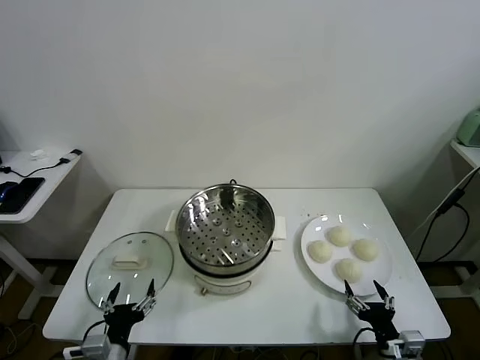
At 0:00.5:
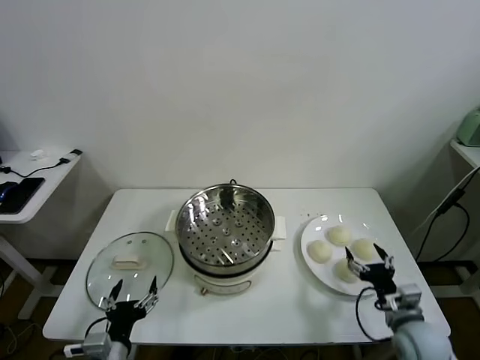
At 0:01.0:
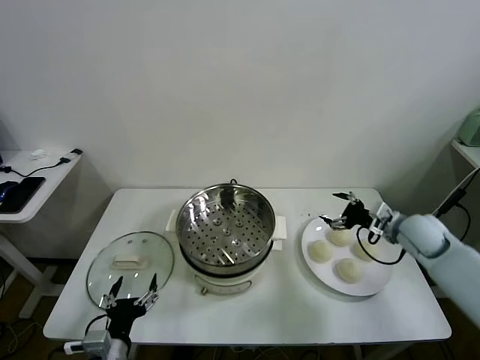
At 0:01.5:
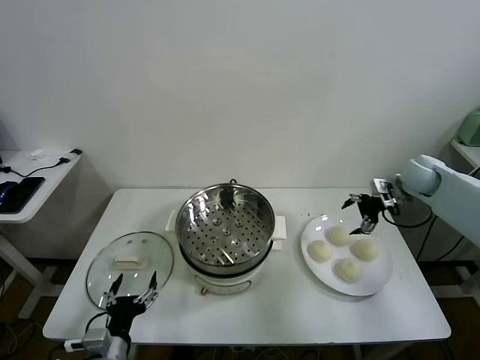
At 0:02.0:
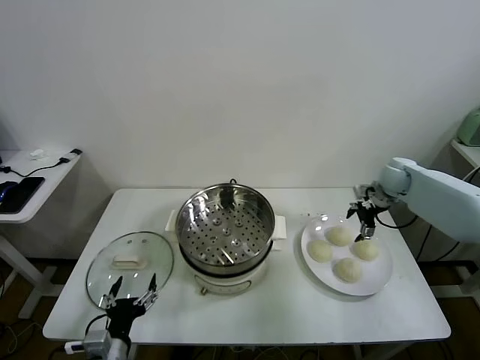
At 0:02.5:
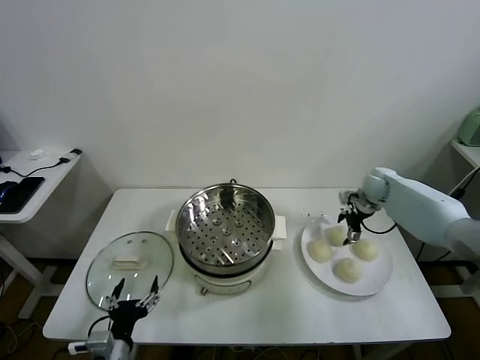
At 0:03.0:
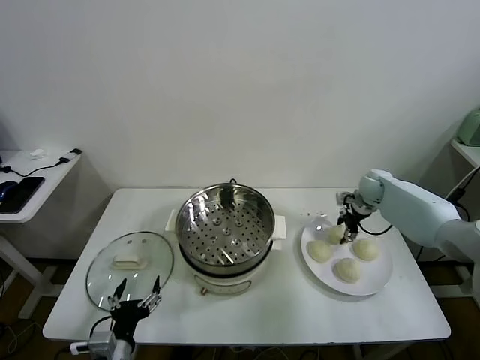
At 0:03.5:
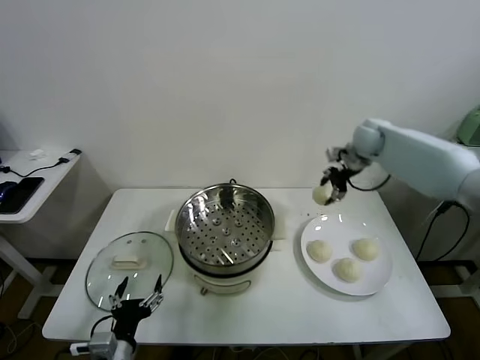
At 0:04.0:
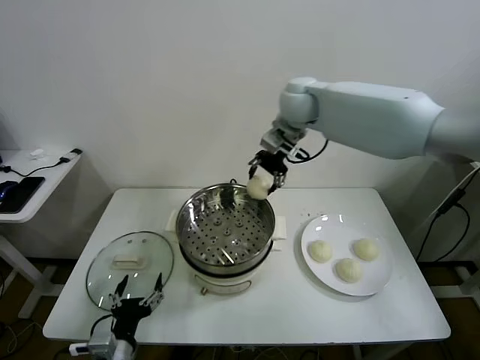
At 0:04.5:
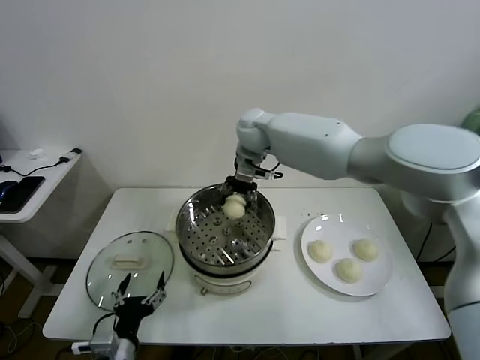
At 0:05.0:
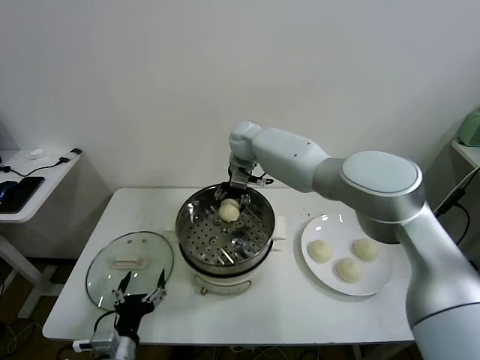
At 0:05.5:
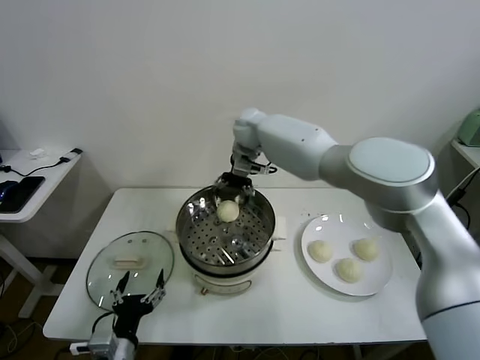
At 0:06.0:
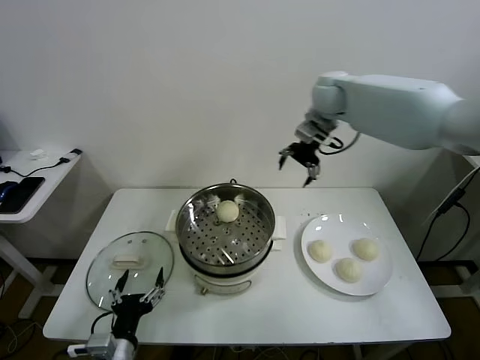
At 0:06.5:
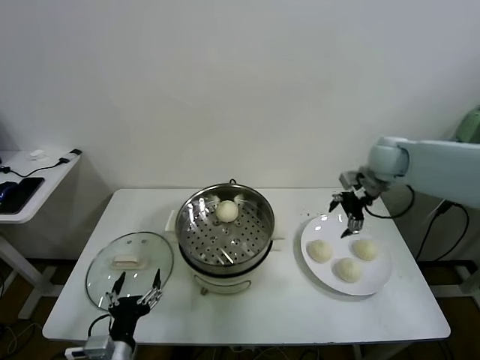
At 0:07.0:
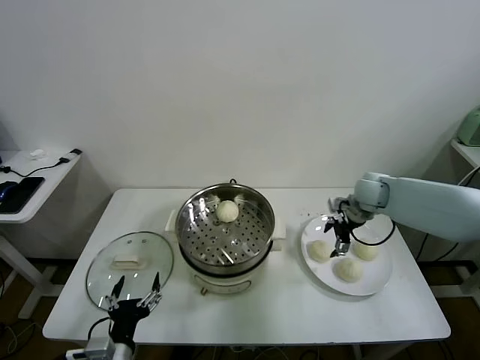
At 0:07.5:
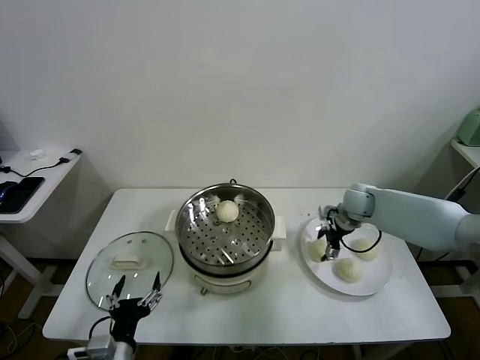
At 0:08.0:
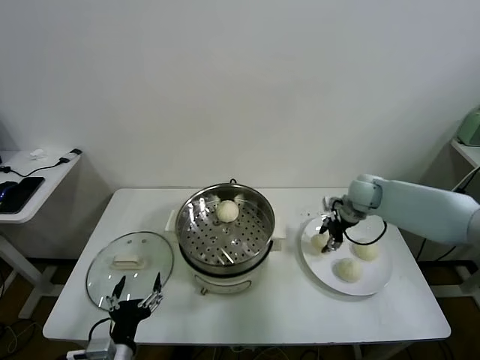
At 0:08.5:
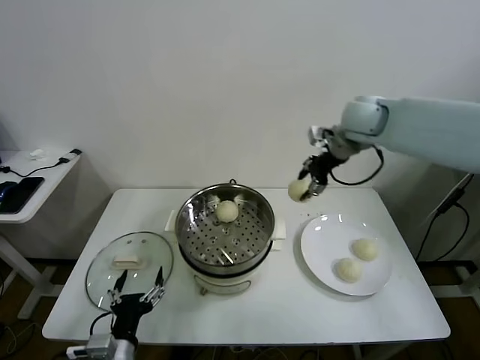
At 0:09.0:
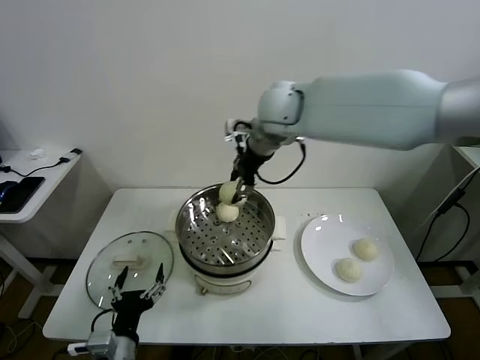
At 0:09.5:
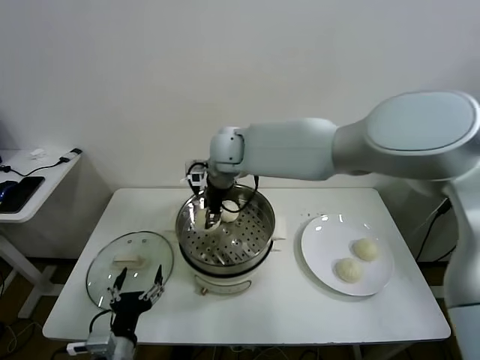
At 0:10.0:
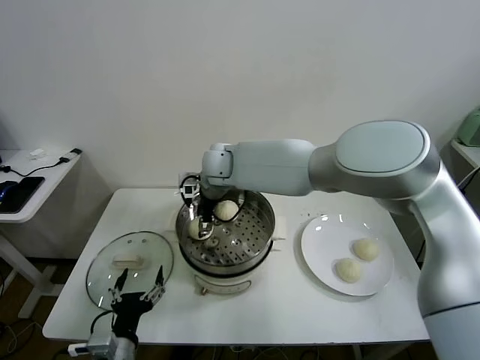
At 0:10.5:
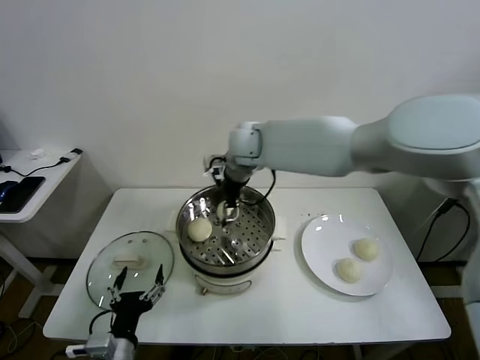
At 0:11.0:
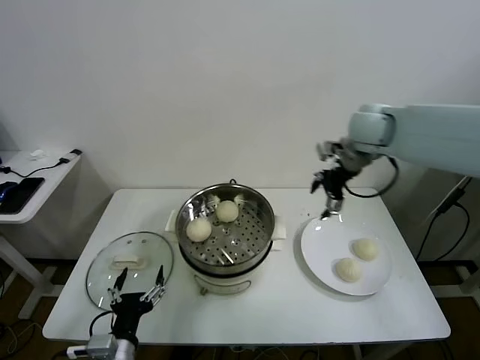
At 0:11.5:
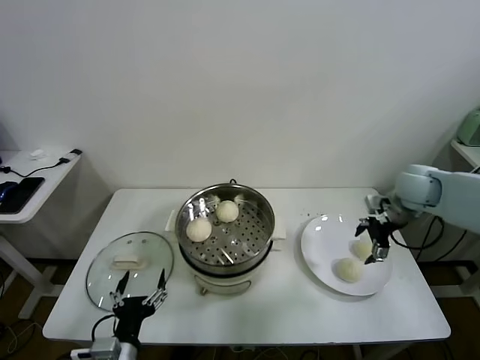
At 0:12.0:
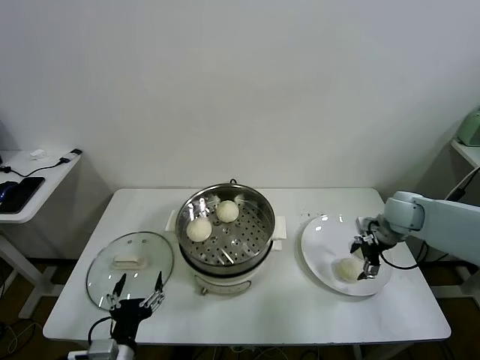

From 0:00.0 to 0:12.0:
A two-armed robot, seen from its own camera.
Task of the whole recording: take steamed baozi put them in steamer.
Step, from 0:00.0 to 0:02.5: Grasp the baozi in the plate with right gripper.
Step, from 0:03.0 to 0:05.0: Place the baozi on the steamer with right gripper.
Step, from 0:05.5 to 0:07.5: Grasp the baozi in the plate with right gripper.
Step, from 0:08.0 to 0:10.0: Place the baozi on the steamer with right gripper.
From 0:02.0 to 0:04.0: The right gripper is displaced to the left and upward by roughly 35 cm, and closes its fingers.
From 0:04.0 to 0:06.0: The right gripper heads to the right, covering about 15 cm, and opens.
From 0:06.0 to 0:08.0: The right gripper goes roughly 20 cm downward, and closes its fingers.
From 0:08.0 to 0:10.0: The right gripper shifts approximately 35 cm to the left, and opens up.
From 0:10.0 to 0:12.0: The right gripper moves to the right, about 40 cm.

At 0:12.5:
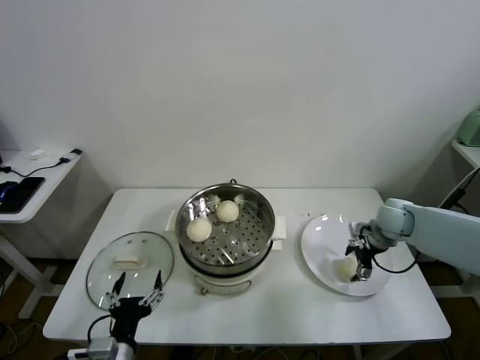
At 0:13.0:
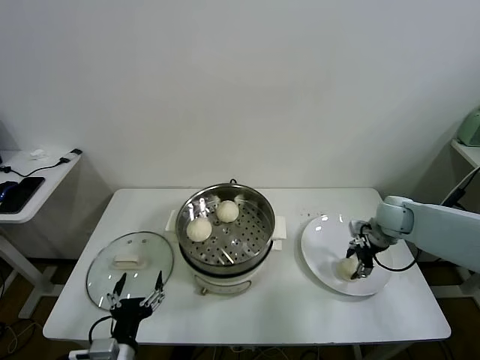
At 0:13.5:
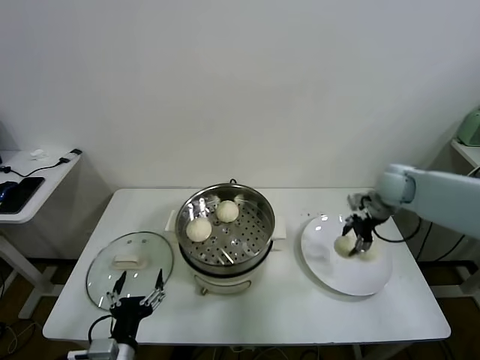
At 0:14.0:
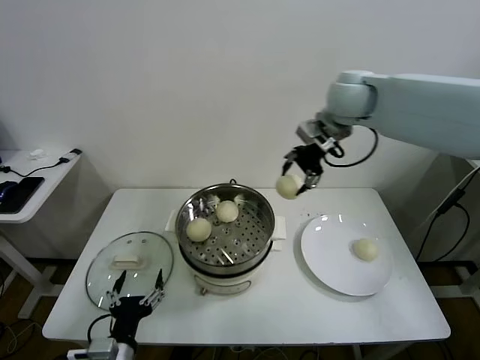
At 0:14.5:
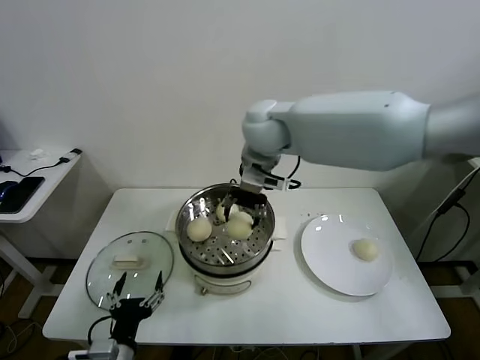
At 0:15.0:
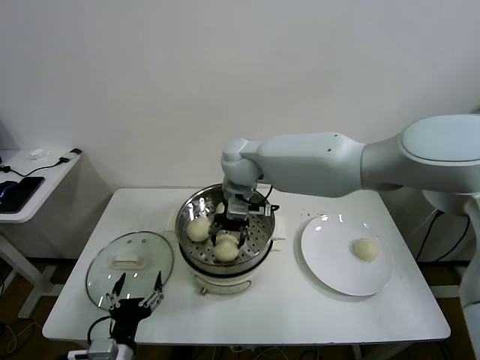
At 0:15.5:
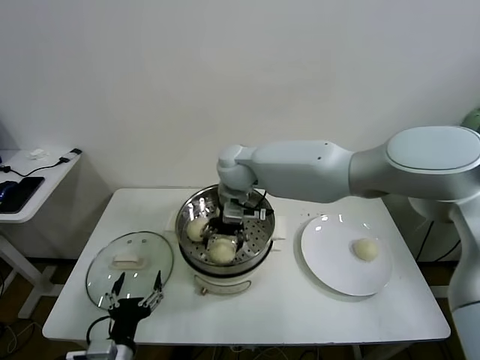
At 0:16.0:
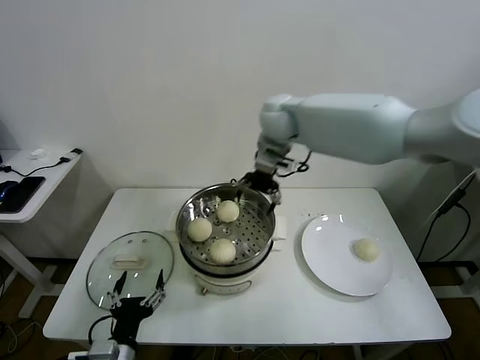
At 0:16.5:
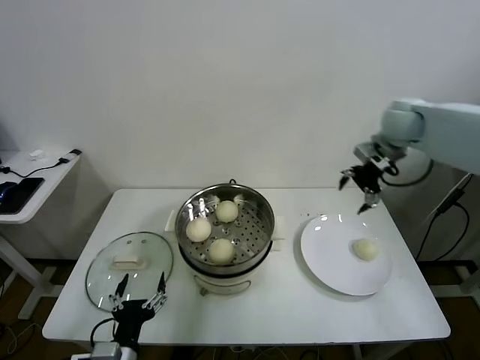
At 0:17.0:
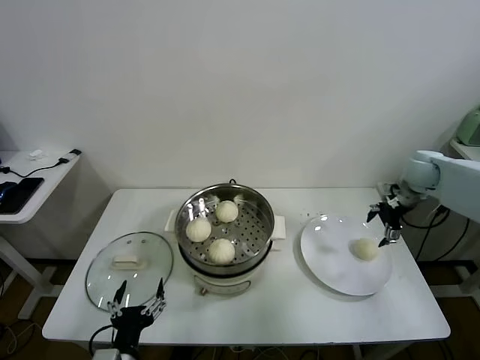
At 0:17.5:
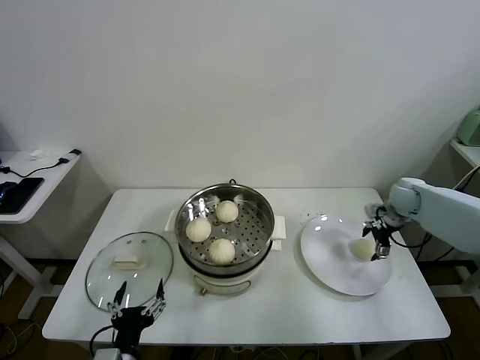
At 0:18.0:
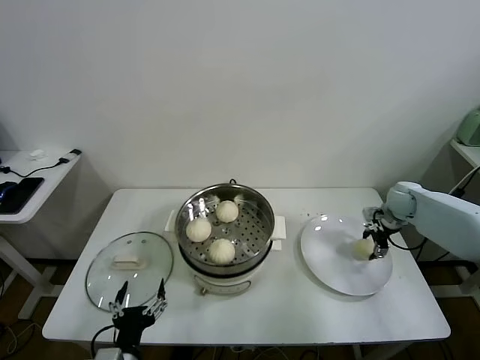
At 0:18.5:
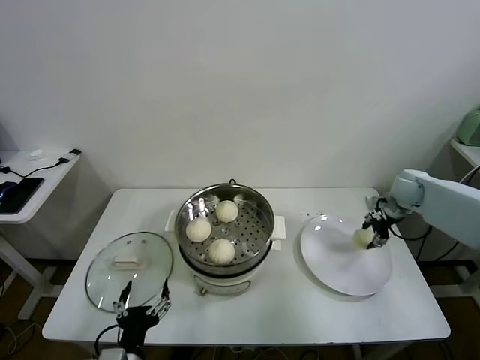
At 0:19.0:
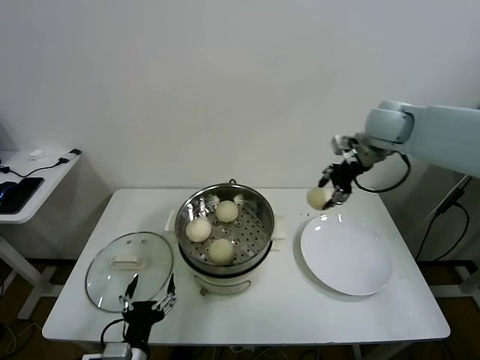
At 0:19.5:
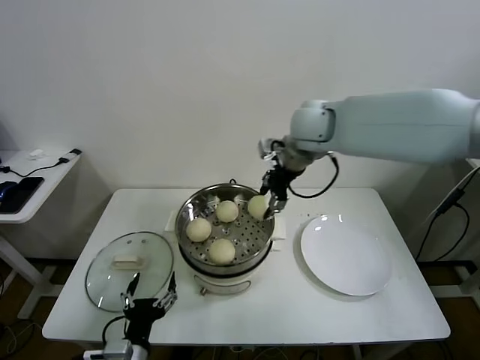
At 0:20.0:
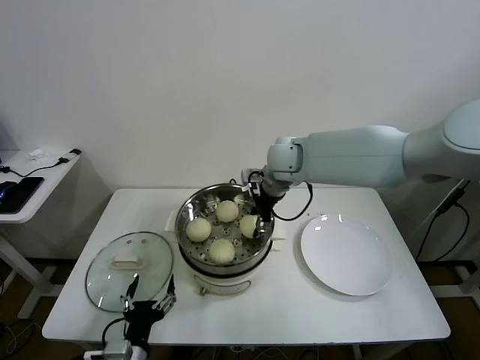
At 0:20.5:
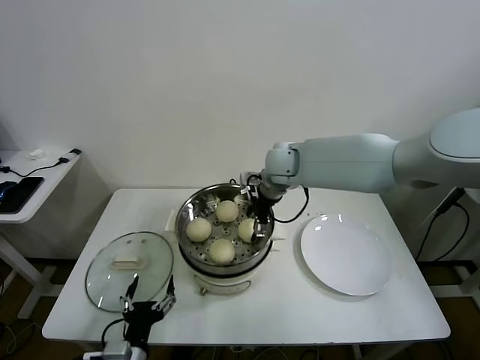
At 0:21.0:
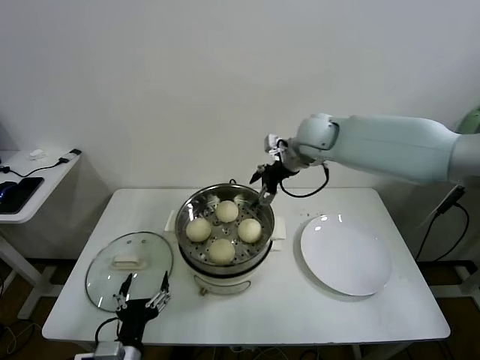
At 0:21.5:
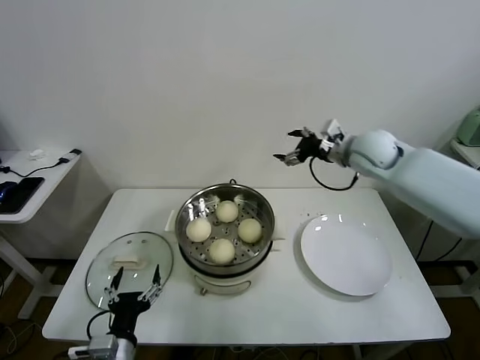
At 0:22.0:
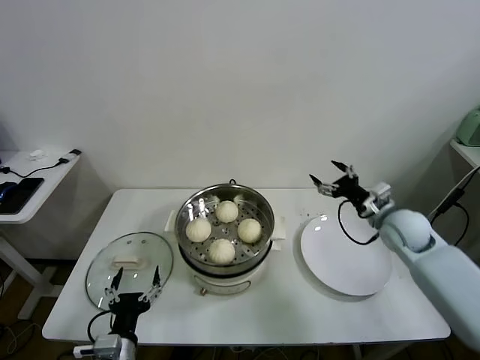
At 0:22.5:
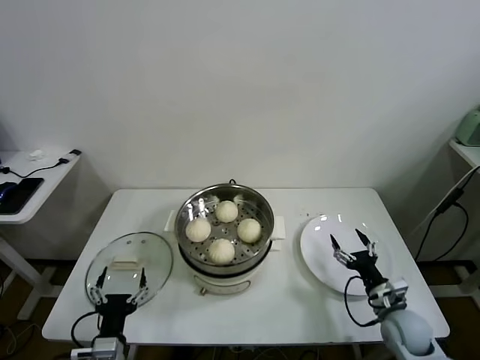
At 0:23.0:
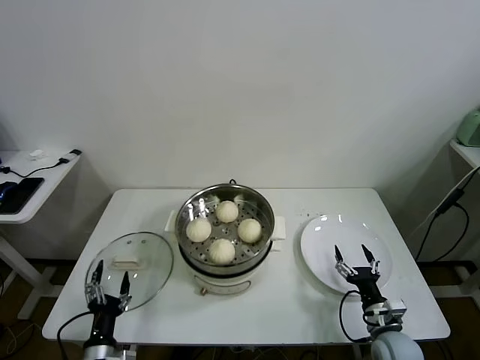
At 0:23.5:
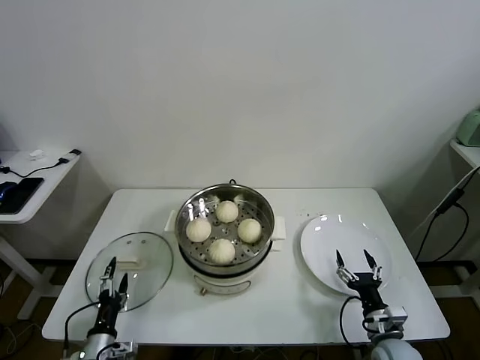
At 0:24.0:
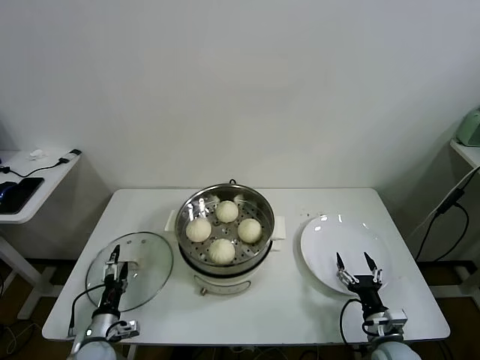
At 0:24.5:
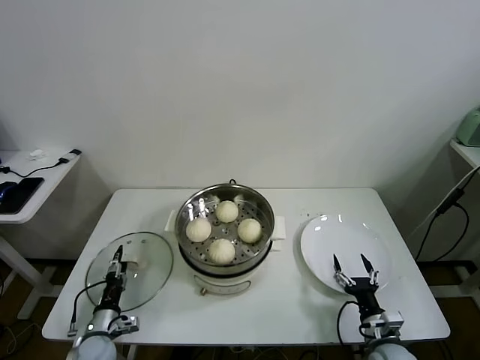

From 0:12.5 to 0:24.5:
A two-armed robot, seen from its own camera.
Task of the whole recording: take steamed baozi put them in steamer.
Step, from 0:13.0 to 0:15.0: Place the baozi on the steamer with right gripper.
Step, from 0:15.5 to 0:17.5: Grasp the baozi in the plate with right gripper.
Step, from 0:18.5 to 0:20.5: Place the baozi on the steamer with right gripper.
From 0:12.5 to 0:14.5: The right gripper goes some 40 cm to the left and upward, and closes its fingers.
From 0:14.5 to 0:16.5: The right gripper goes roughly 30 cm to the right, and opens its fingers.
From 0:16.5 to 0:18.5: The right gripper goes roughly 15 cm downward, and closes up.
From 0:18.5 to 0:20.5: The right gripper travels to the left by some 35 cm, and opens.
From 0:20.5 to 0:22.5: The right gripper moves downward, to the right and backward, some 50 cm.
From 0:22.5 to 0:24.5: The left gripper heads downward, to the left and forward, covering roughly 20 cm. Meanwhile the right gripper heads backward, covering approximately 5 cm.

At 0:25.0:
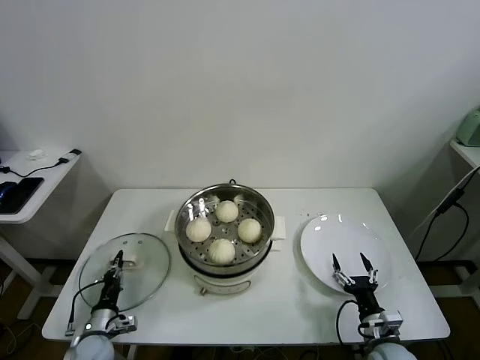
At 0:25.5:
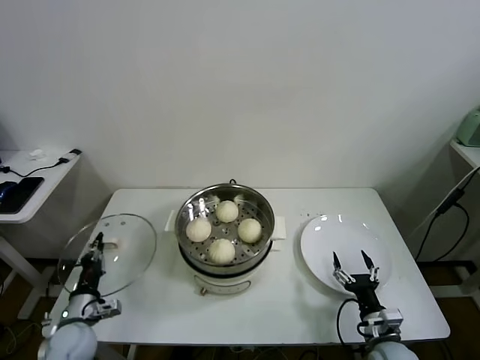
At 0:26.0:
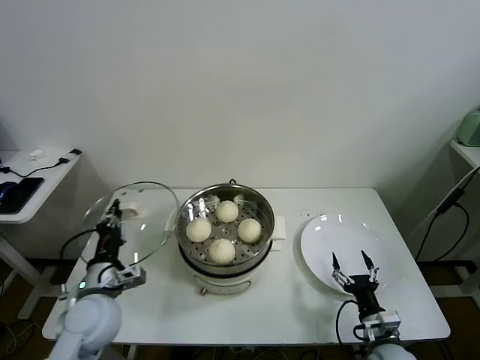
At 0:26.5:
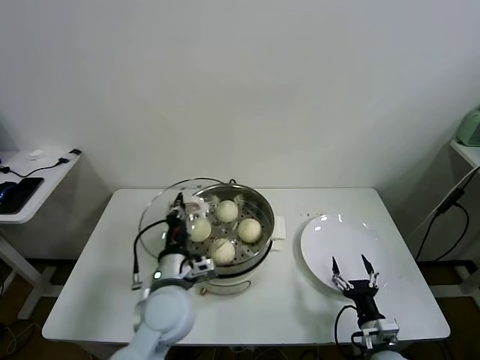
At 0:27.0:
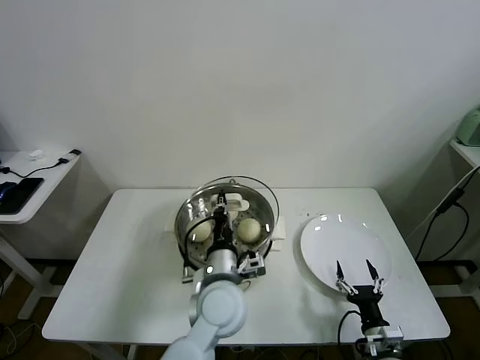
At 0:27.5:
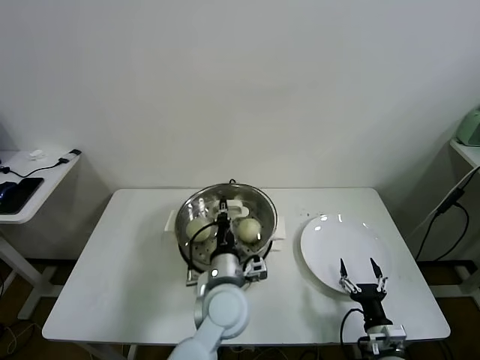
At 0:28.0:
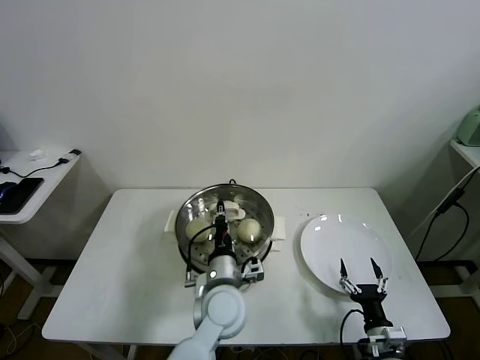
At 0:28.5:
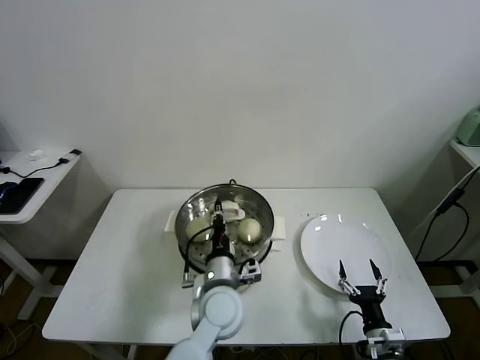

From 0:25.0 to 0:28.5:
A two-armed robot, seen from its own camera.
Task of the whole recording: take steamed baozi put them in steamer.
From 0:25.0 to 0:27.0: The left gripper goes roughly 40 cm to the right and upward.
From 0:27.0 to 0:28.5: The grippers move only a little.
